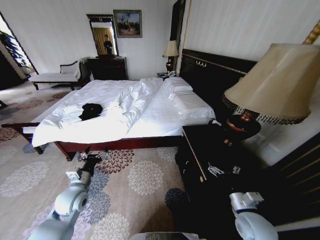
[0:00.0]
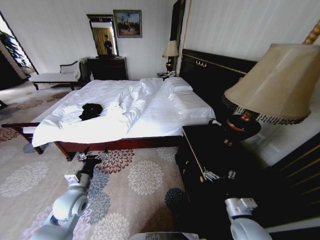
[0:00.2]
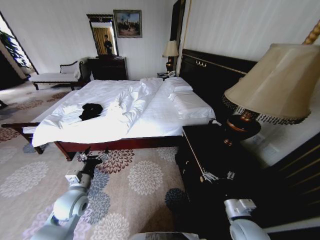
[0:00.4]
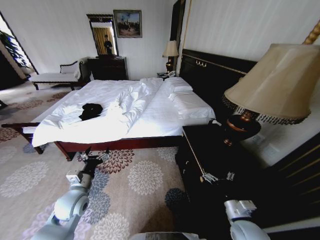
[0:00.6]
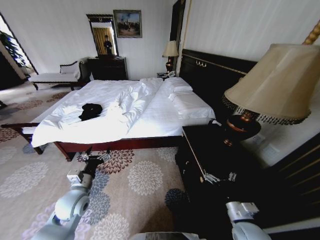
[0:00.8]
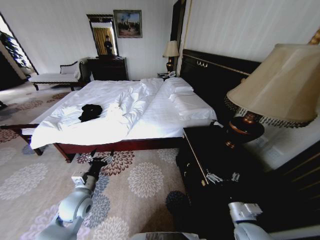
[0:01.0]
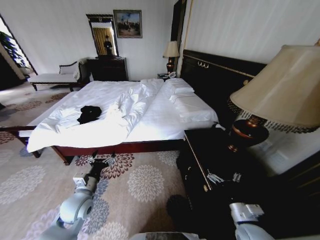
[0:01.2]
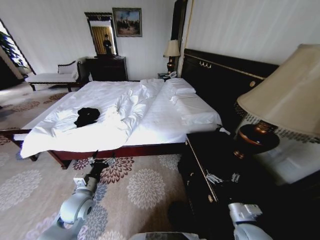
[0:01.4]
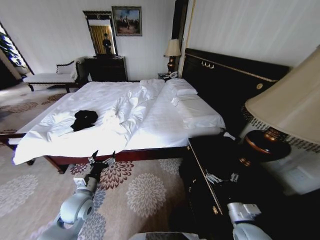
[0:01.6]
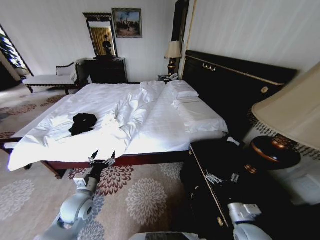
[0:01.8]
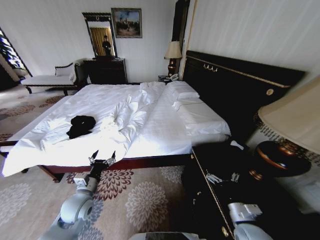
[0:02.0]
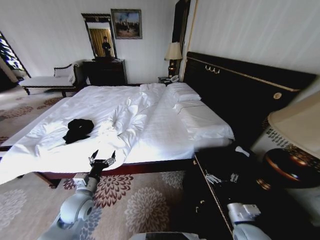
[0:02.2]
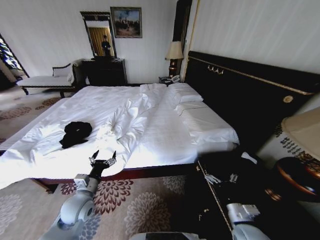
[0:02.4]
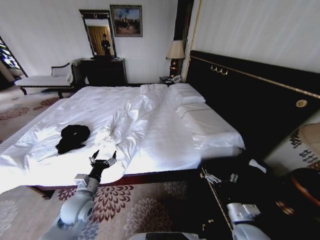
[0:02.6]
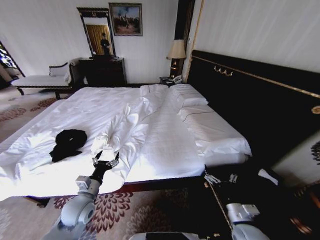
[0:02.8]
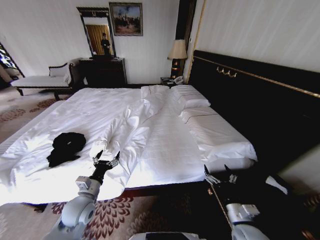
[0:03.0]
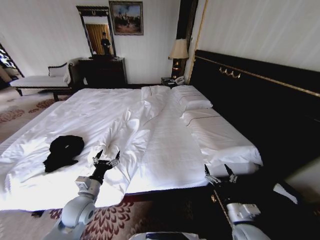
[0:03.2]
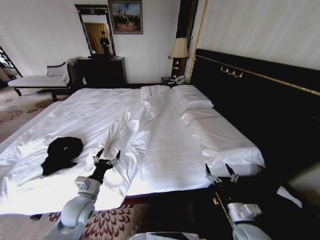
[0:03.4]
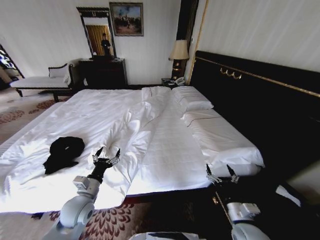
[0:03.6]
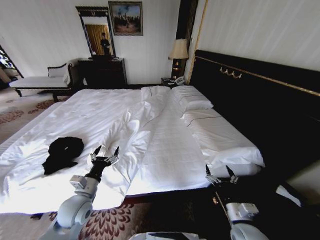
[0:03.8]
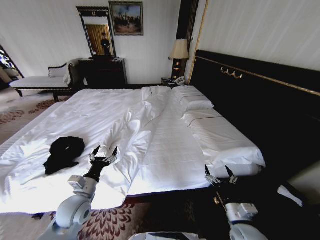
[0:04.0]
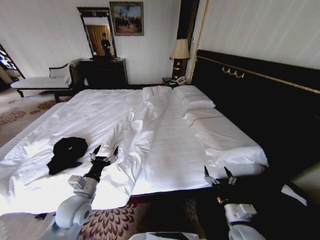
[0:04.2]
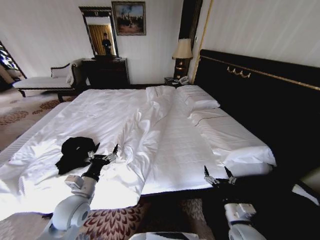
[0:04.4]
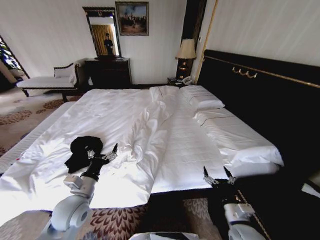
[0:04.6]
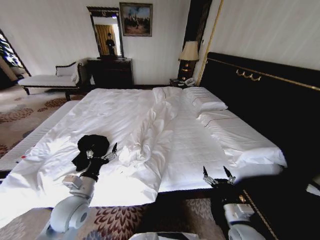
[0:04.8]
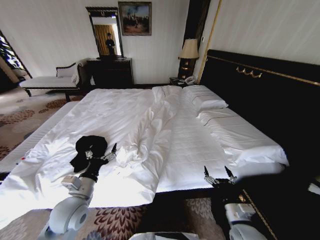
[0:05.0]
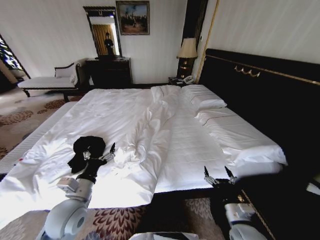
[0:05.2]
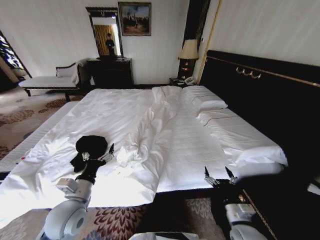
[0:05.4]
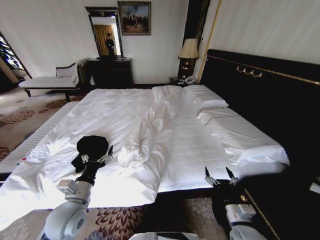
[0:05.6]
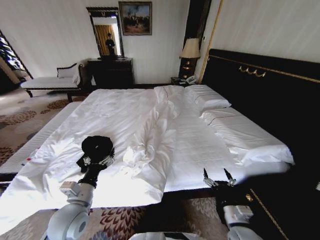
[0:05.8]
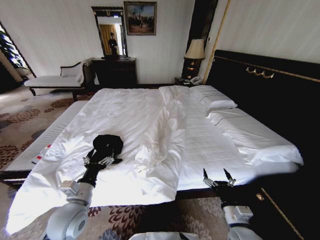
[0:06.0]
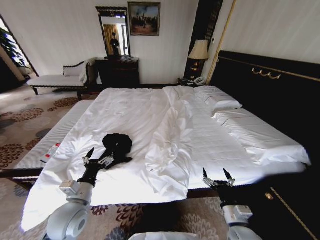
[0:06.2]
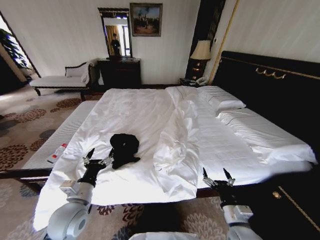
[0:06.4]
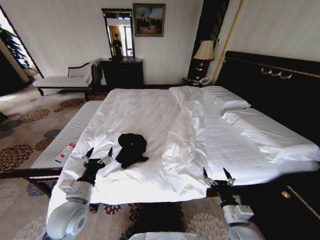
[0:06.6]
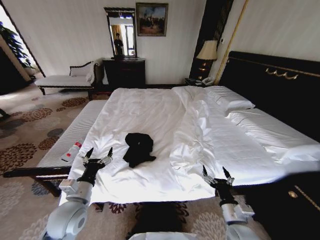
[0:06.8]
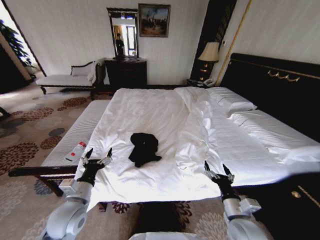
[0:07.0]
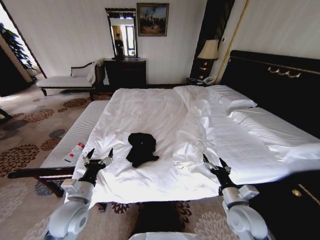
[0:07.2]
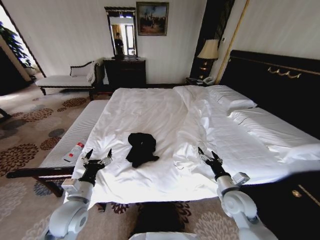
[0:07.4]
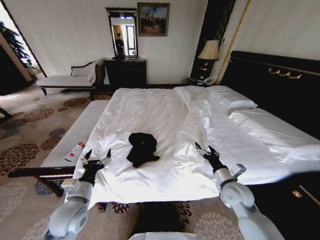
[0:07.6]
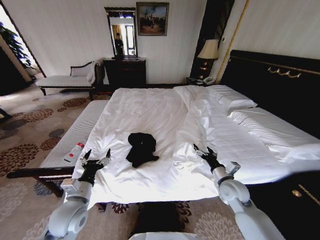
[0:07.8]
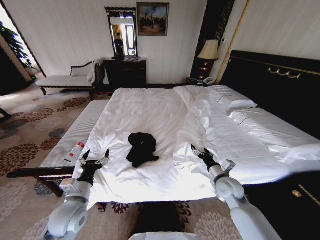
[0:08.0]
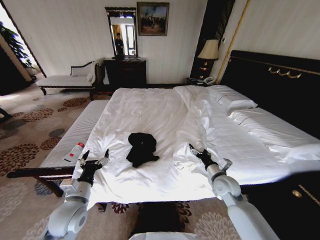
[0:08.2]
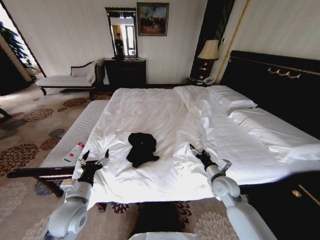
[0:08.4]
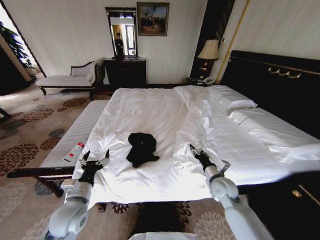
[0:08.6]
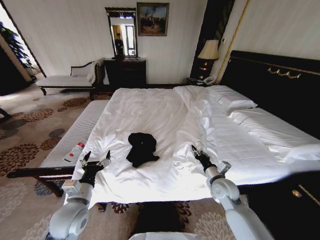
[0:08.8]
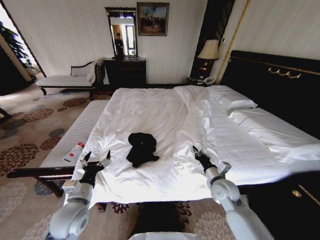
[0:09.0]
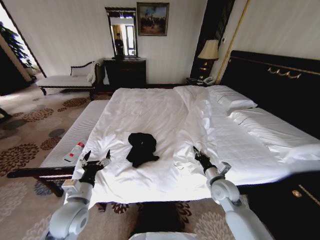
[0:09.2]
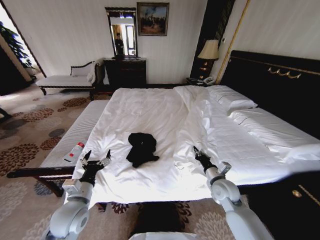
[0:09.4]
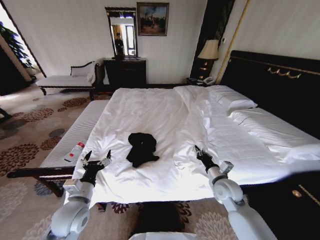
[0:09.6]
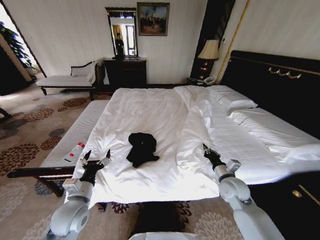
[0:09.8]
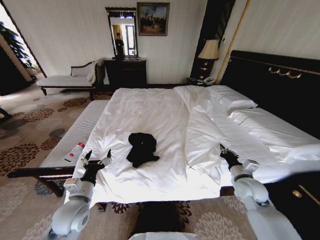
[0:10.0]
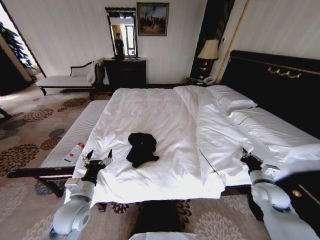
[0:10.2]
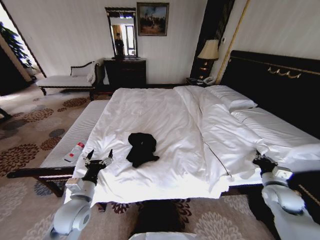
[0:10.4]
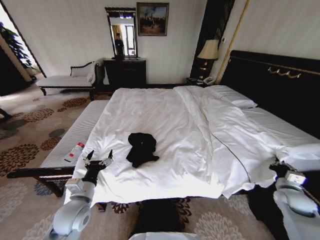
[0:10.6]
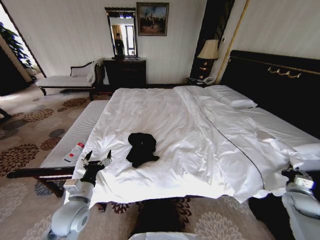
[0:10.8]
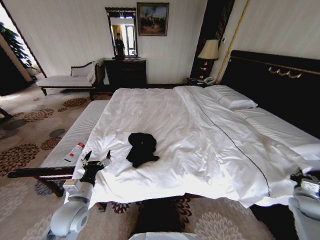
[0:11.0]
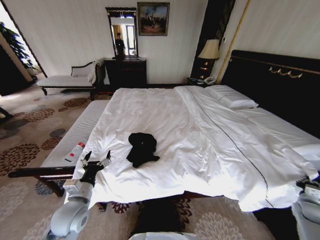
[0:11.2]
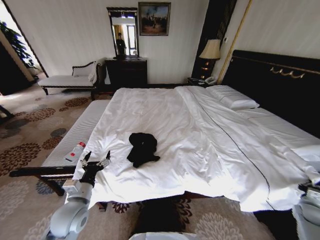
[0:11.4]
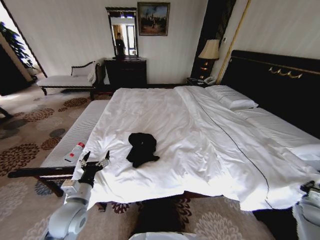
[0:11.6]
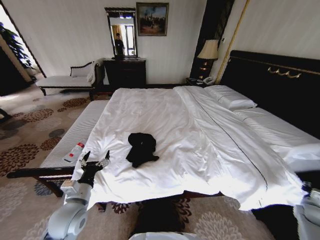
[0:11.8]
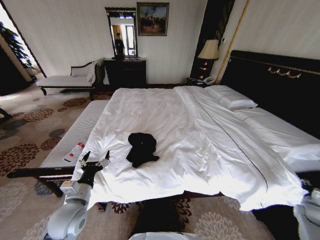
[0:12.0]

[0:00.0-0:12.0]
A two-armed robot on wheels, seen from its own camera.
Task of the whole recording: Fold the clothes on the bed.
0:06.0 to 0:07.6: The right gripper goes roughly 15 cm forward.
0:07.6 to 0:09.0: The right gripper closes.
0:09.0 to 0:10.4: The right gripper heads to the right, covering roughly 20 cm.
0:10.4 to 0:12.0: The right gripper goes some 15 cm to the right and downward, and opens its fingers.

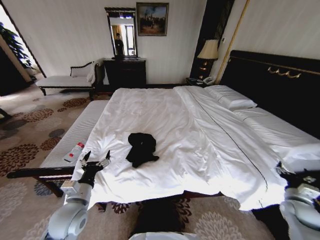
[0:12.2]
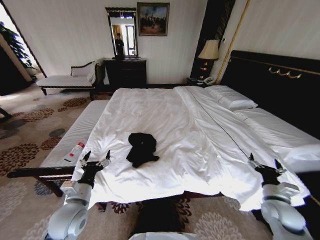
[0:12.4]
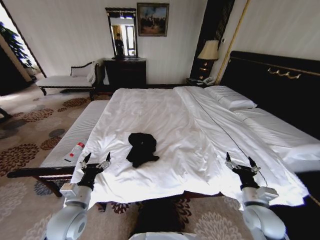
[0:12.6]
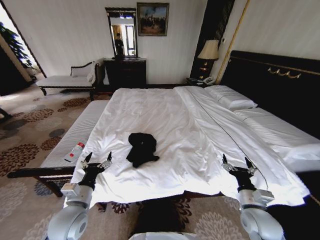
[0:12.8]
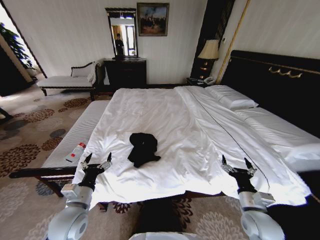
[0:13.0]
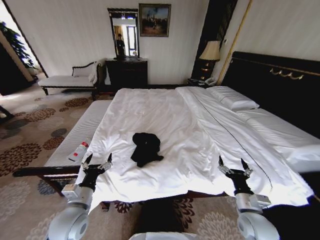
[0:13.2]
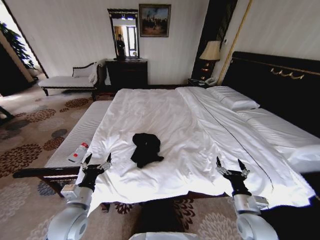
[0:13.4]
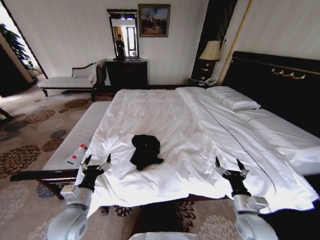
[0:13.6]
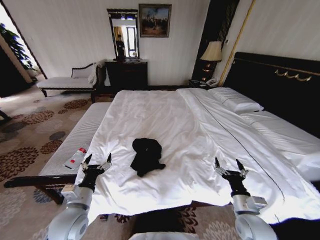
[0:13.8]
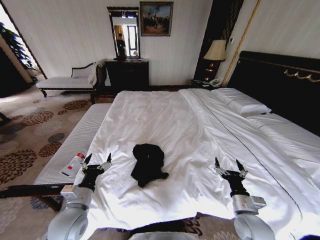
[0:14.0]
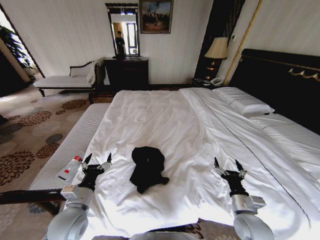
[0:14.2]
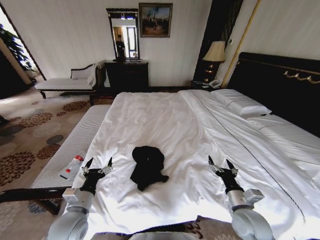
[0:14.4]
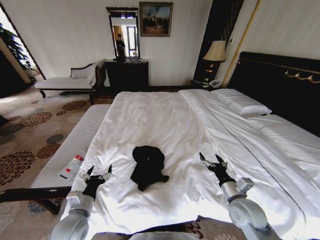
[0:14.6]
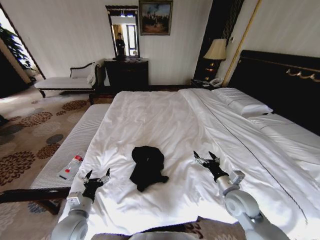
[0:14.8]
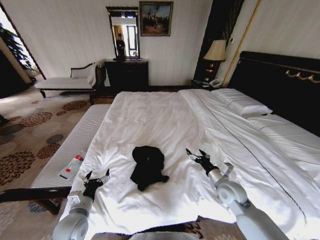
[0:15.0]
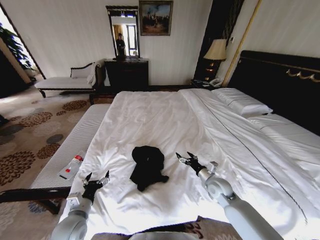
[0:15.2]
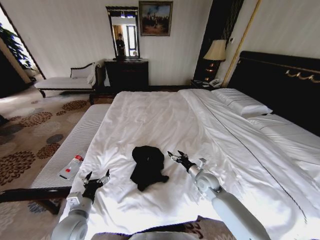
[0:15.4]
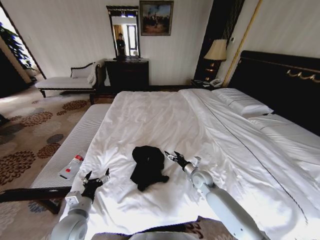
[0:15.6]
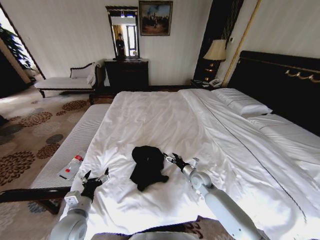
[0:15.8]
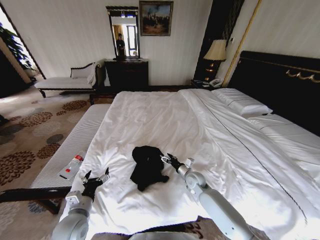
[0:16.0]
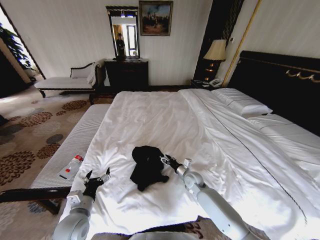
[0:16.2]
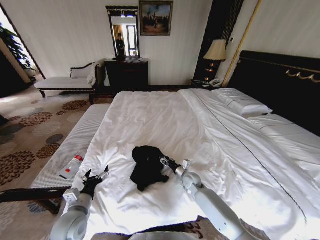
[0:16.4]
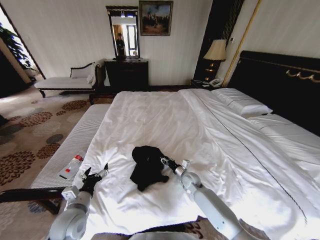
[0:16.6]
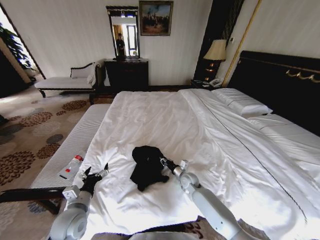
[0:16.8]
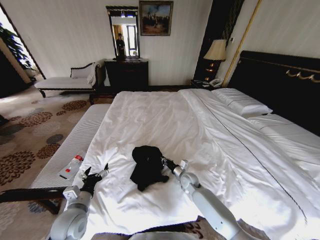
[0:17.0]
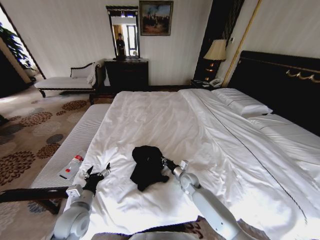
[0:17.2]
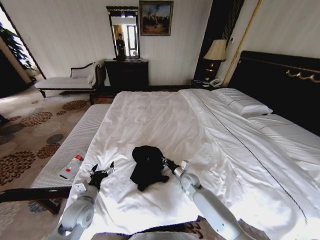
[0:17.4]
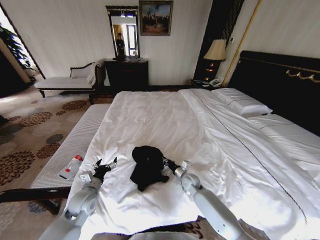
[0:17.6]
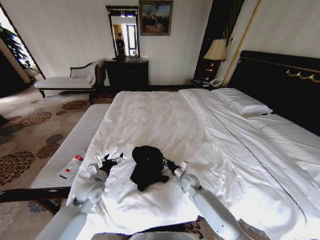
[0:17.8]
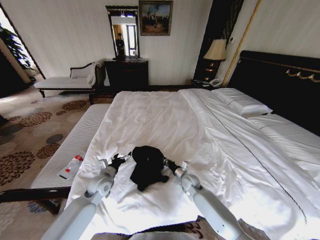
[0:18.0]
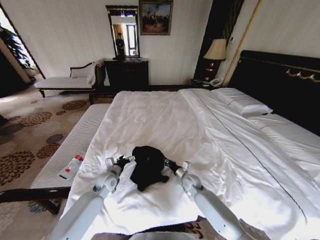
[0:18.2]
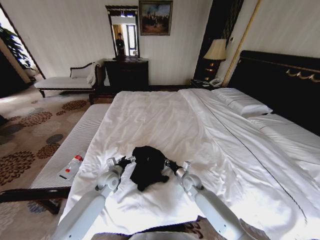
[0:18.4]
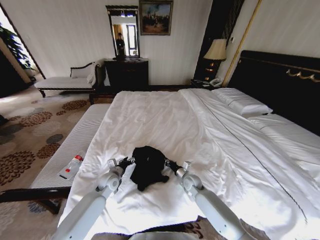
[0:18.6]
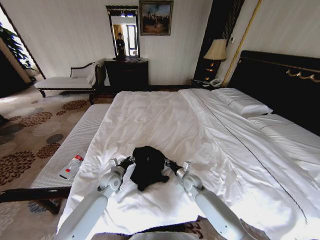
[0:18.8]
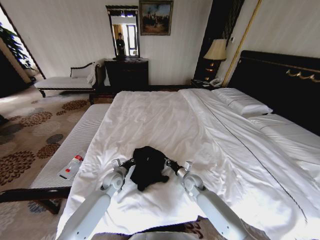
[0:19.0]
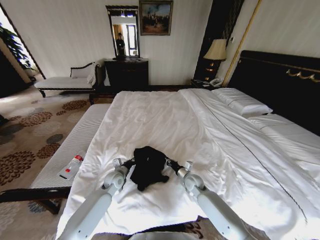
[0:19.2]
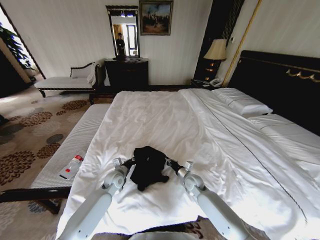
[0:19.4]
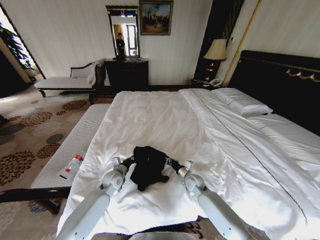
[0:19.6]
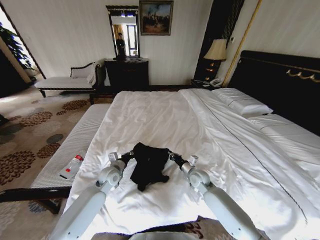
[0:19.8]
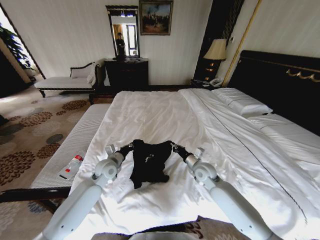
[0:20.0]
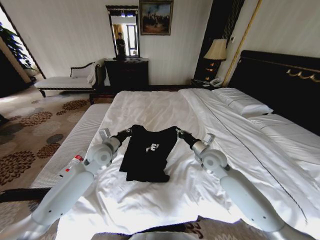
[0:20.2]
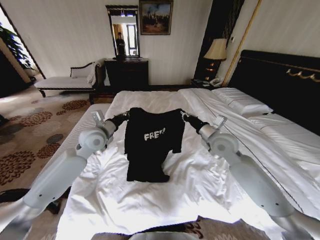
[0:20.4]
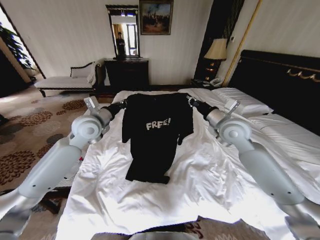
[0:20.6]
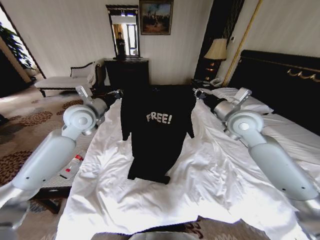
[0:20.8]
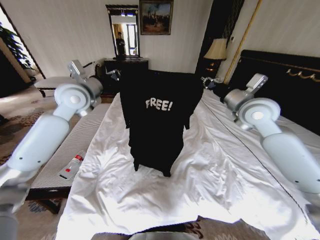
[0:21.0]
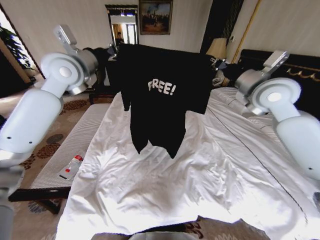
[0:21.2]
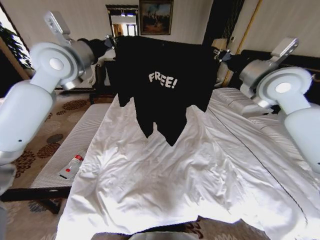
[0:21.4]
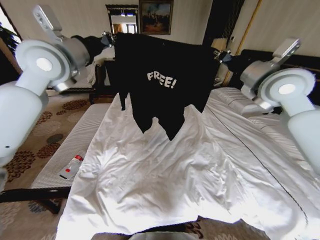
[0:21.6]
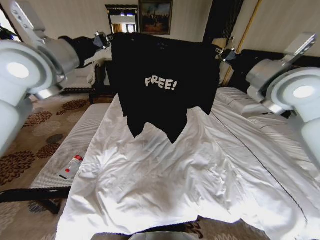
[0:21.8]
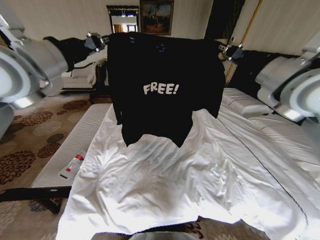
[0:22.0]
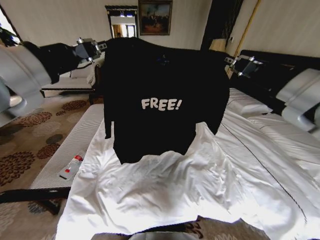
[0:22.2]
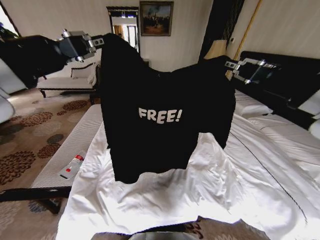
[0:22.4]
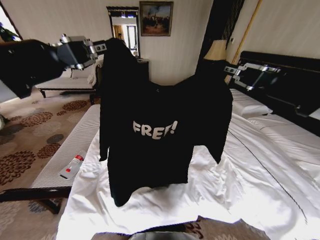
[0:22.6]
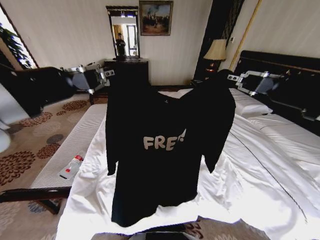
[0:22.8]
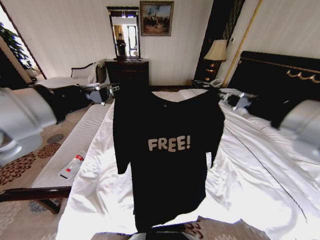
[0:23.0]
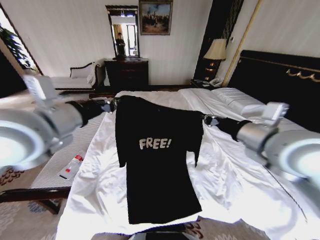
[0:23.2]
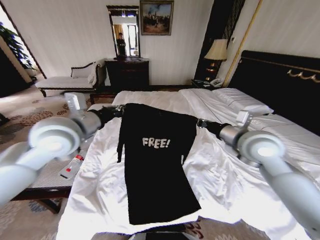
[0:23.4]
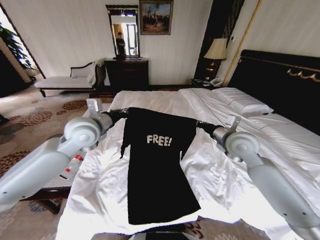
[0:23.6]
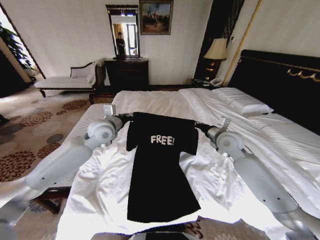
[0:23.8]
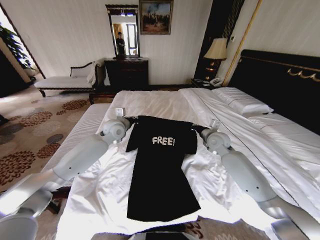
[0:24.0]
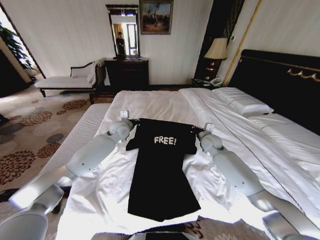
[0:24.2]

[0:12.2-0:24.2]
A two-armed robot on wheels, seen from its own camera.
Task of the whole recording: Fold the clothes on the bed.
0:12.2 to 0:13.8: The right gripper moves to the left, approximately 25 cm.
0:13.8 to 0:15.2: The right gripper is displaced forward by approximately 15 cm. Meanwhile the left gripper is displaced downward by some 5 cm.
0:15.2 to 0:16.6: The right gripper shifts some 15 cm to the left, downward and forward, and closes its fingers.
0:16.6 to 0:18.2: The left gripper is displaced forward by about 15 cm; the right gripper closes.
0:18.2 to 0:19.8: The right gripper changes place by approximately 5 cm. The left gripper closes its fingers.
0:19.8 to 0:21.2: Both grippers travel together upward, about 40 cm.
0:21.2 to 0:22.6: Both grippers travel together backward, some 25 cm.
0:22.6 to 0:24.2: The right gripper heads downward and forward, covering about 50 cm. The left gripper travels forward and downward by some 50 cm.
